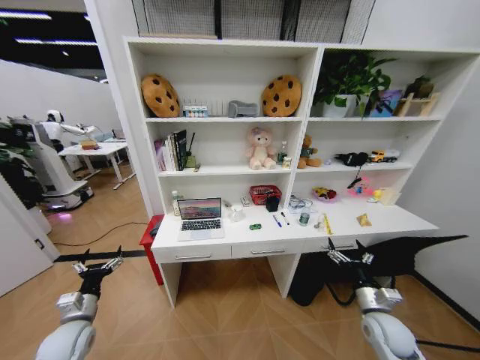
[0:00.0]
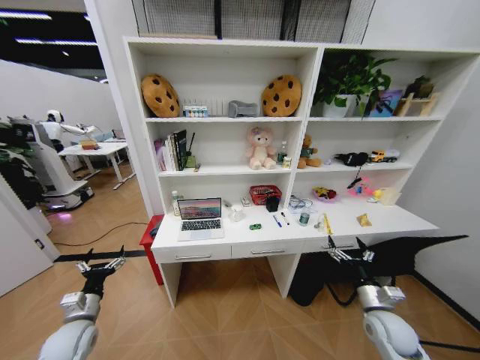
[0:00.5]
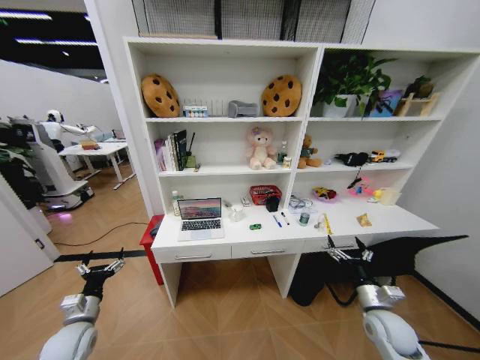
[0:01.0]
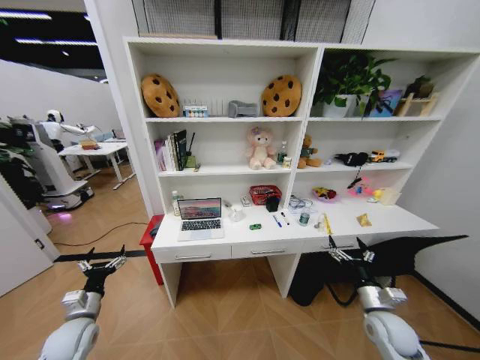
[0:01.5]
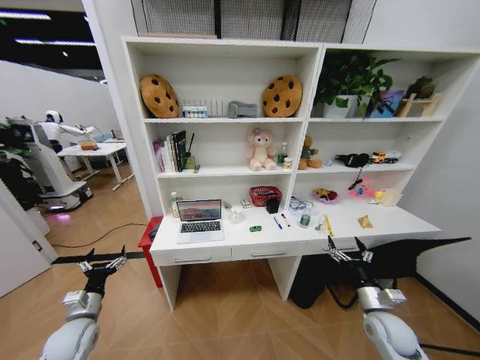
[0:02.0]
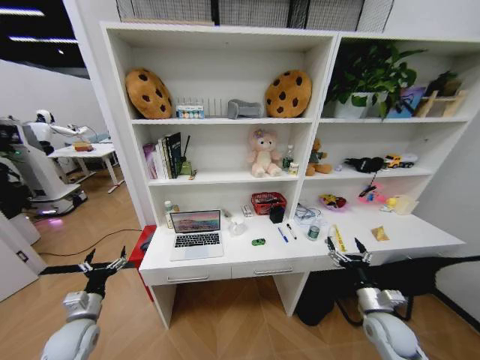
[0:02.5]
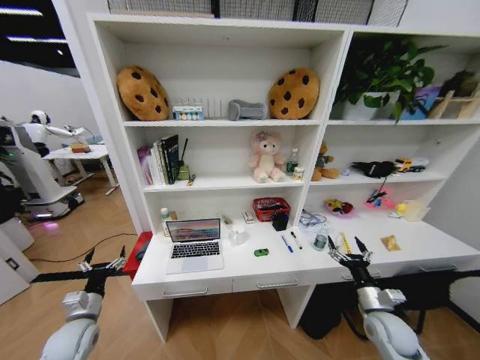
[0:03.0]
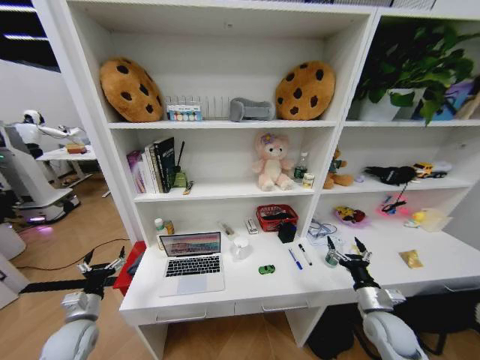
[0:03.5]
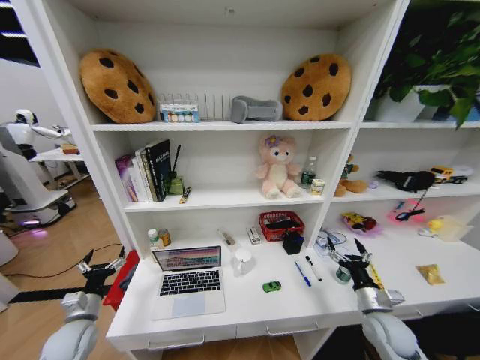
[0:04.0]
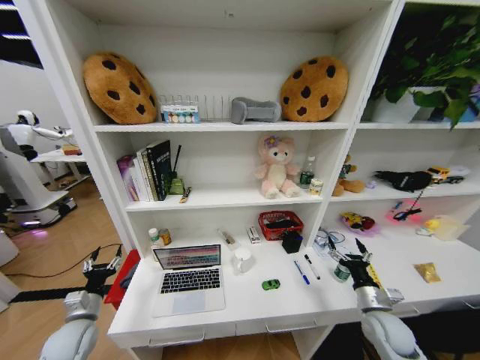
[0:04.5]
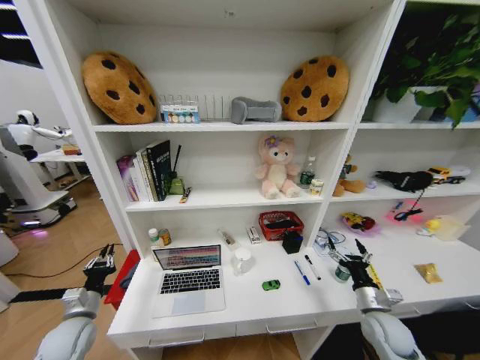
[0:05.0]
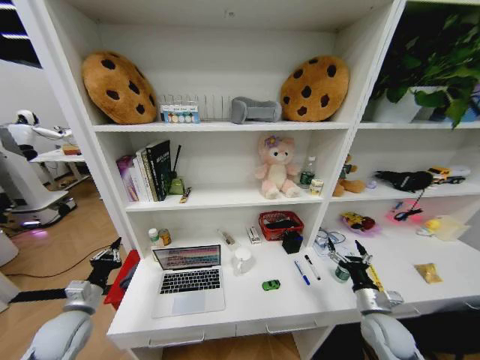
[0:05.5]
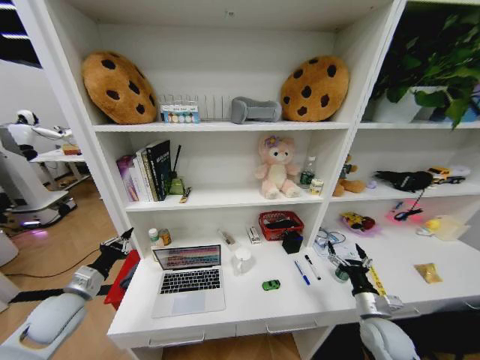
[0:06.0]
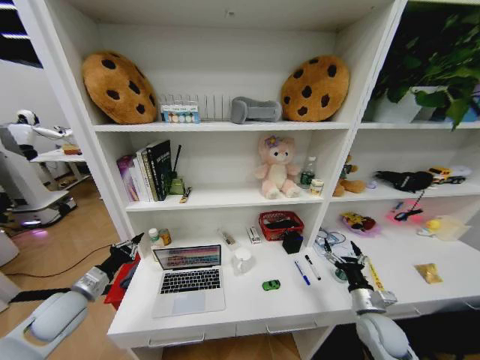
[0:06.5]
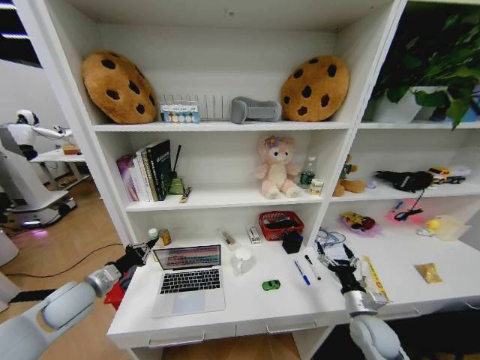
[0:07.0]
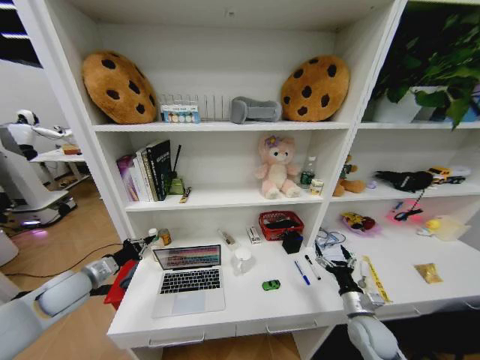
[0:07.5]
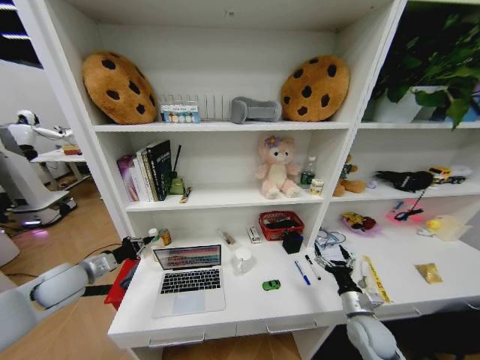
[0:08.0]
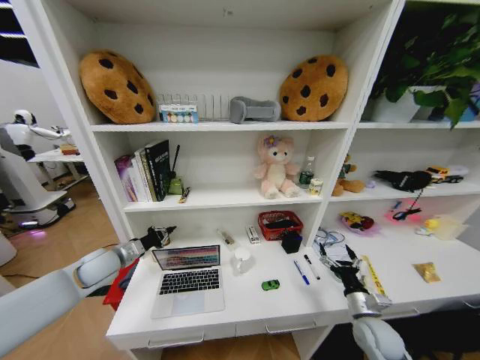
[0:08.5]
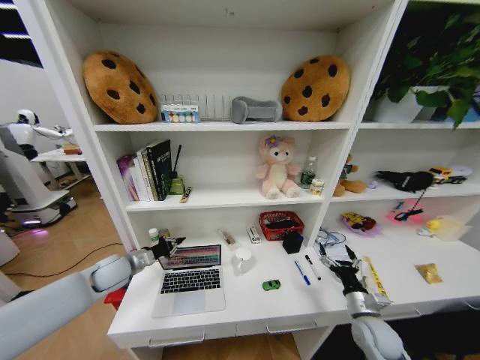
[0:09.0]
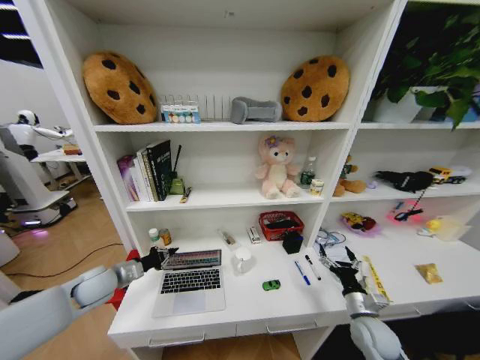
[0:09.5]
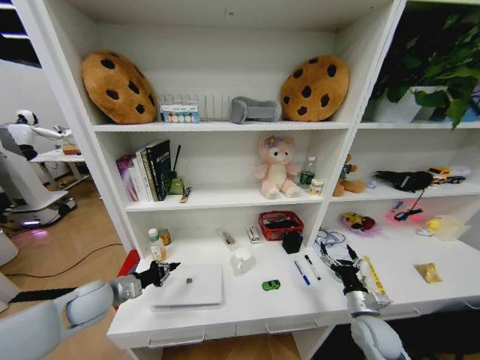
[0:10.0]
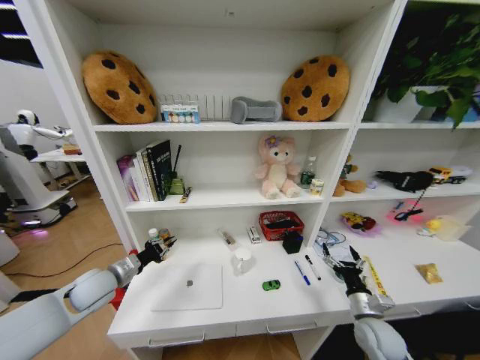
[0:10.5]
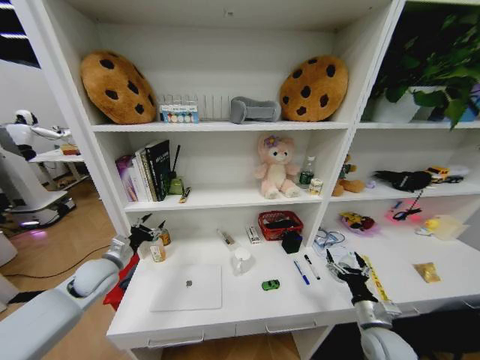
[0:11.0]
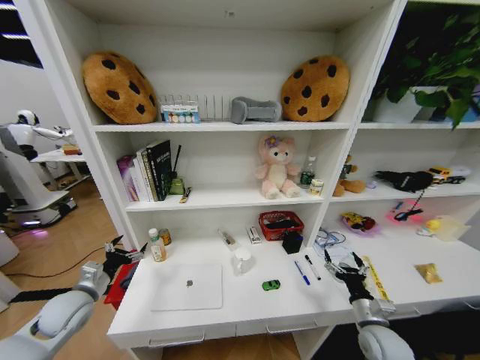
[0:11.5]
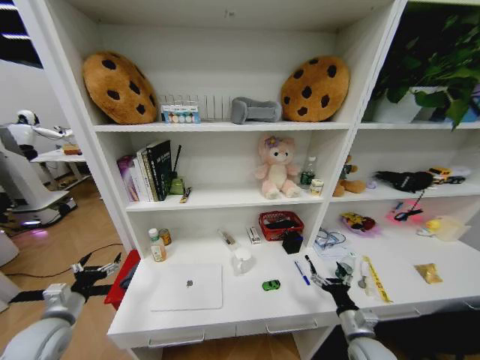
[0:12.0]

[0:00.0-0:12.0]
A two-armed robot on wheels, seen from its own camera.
Task of the whole recording: Organize the objects on the table.
0:04.0 to 0:06.0: The left gripper travels upward by roughly 10 cm, and closes.
0:06.0 to 0:08.0: The left gripper goes some 5 cm forward.
0:08.0 to 0:10.0: The left gripper shifts some 10 cm to the right and downward.
0:10.0 to 0:12.0: The left gripper is displaced backward and to the left by roughly 10 cm, and opens. Meanwhile the right gripper moves about 5 cm.

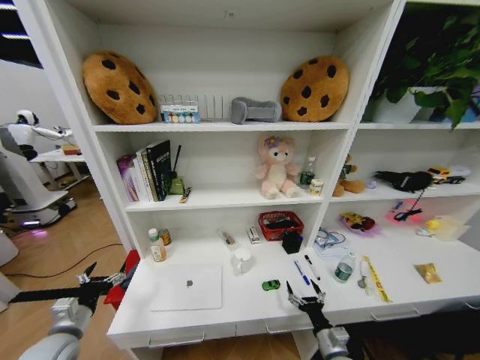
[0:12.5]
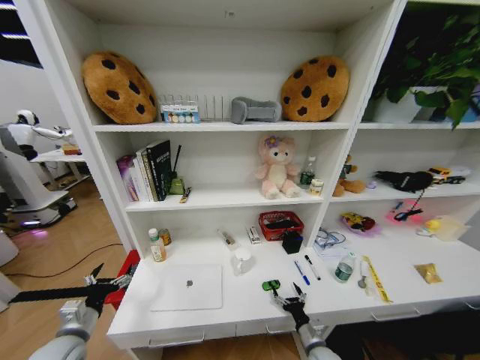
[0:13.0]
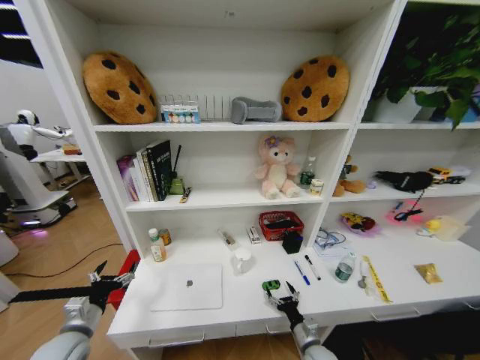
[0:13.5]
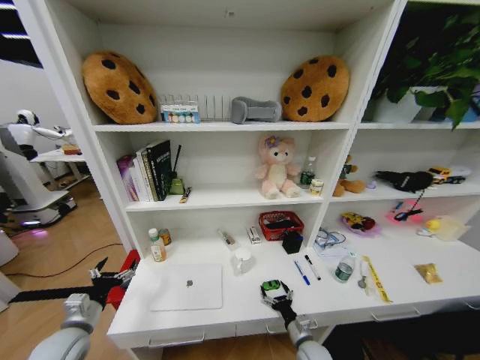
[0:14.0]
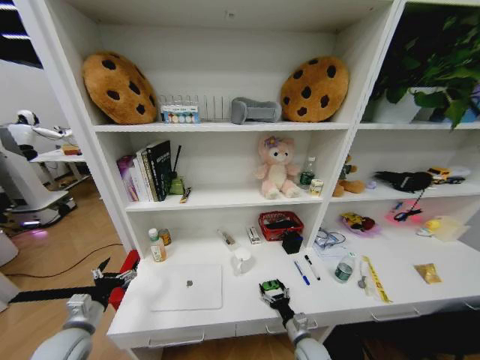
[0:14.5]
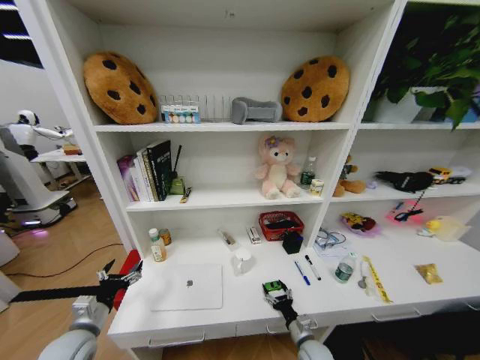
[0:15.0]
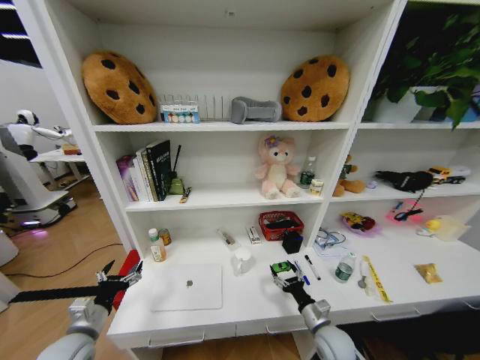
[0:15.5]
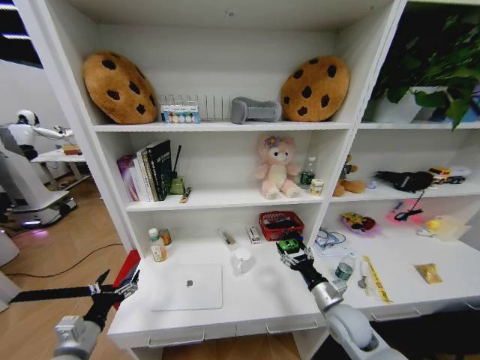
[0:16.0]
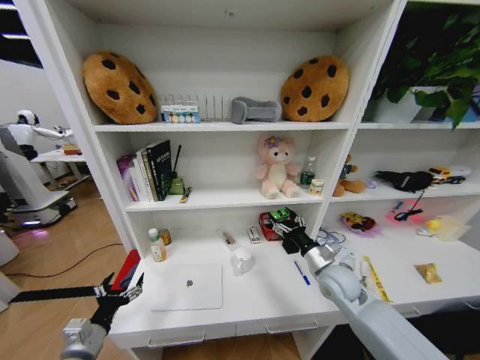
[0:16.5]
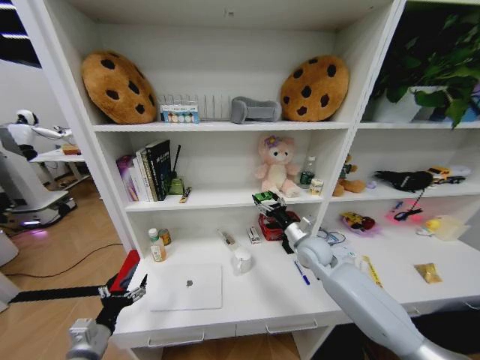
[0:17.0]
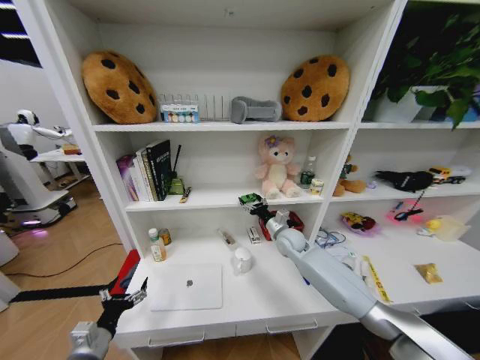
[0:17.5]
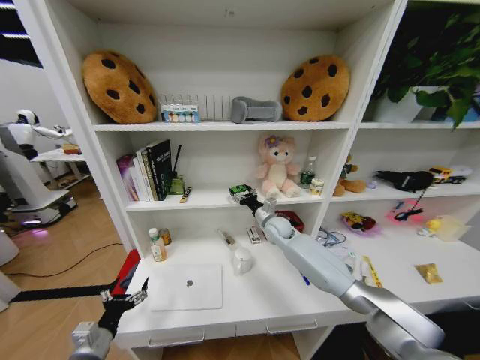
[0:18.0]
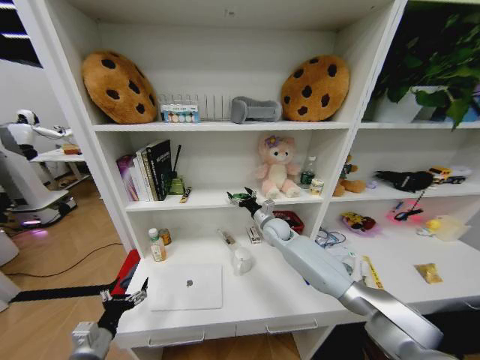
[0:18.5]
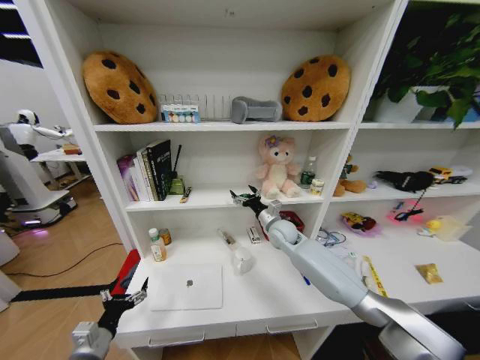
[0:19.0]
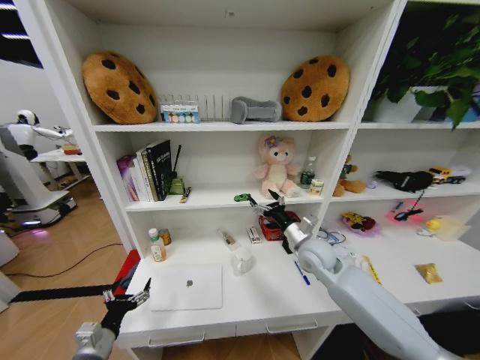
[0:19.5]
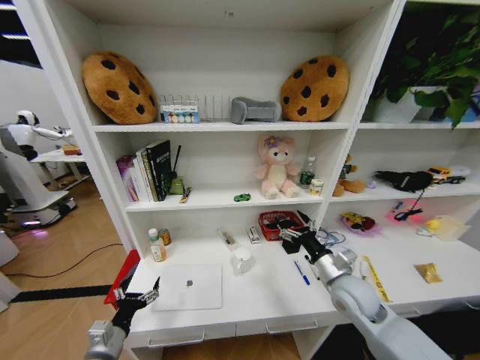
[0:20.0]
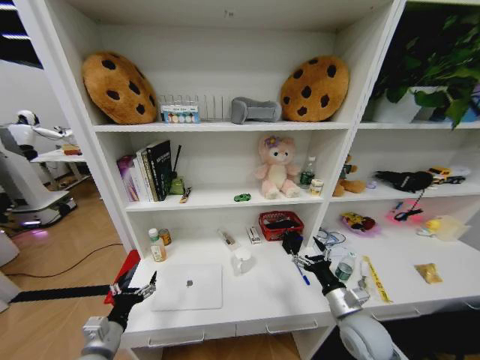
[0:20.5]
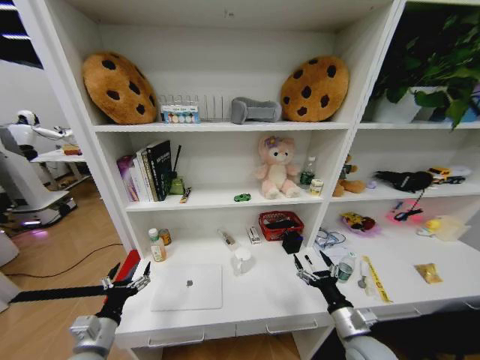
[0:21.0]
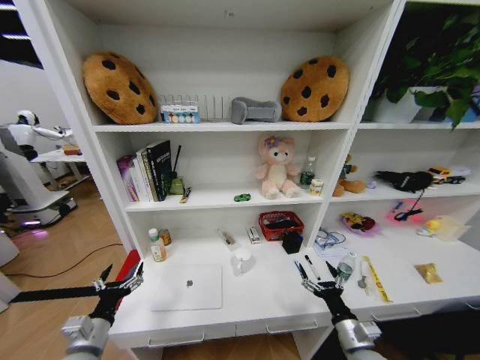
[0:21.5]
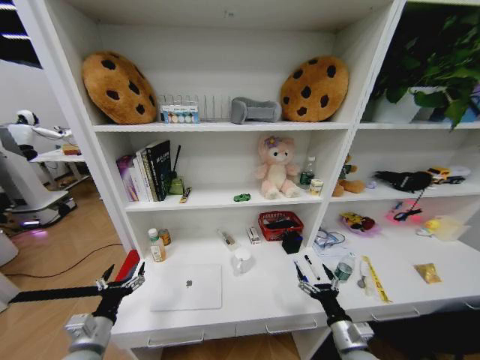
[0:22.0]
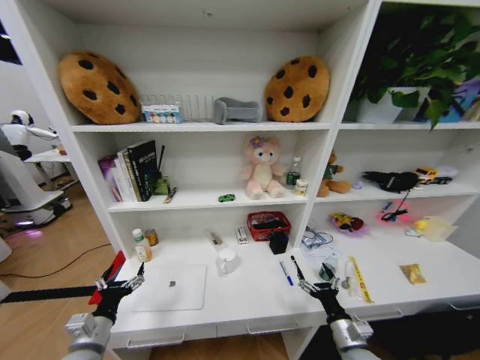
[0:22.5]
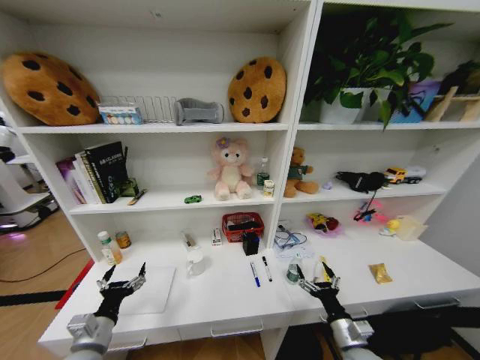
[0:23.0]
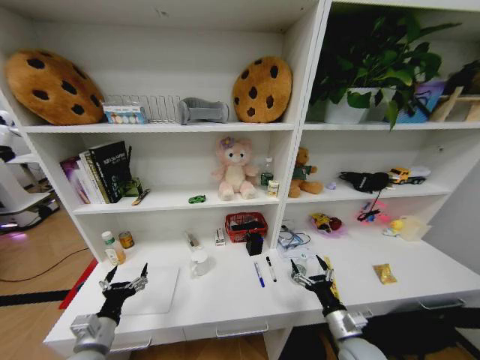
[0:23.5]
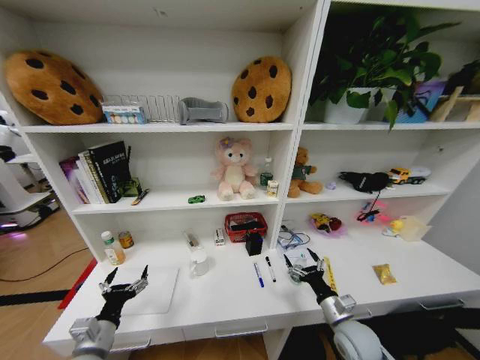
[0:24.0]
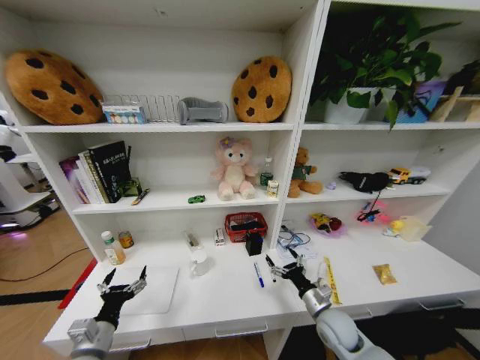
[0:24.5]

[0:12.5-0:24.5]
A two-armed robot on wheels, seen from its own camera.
Task of the whole recording: Organize the objects on the table.
0:12.5 to 0:14.5: The right gripper heads downward, forward and to the left, covering some 10 cm.
0:14.5 to 0:16.5: The right gripper goes some 30 cm upward and forward, while the left gripper travels backward by roughly 5 cm.
0:16.5 to 0:18.5: The right gripper is displaced forward and to the left by about 20 cm.
0:18.5 to 0:20.5: The right gripper goes approximately 30 cm backward and to the right.
0:20.5 to 0:22.5: The right gripper shifts approximately 10 cm downward and backward.
0:22.5 to 0:24.5: The right gripper travels forward by about 10 cm.

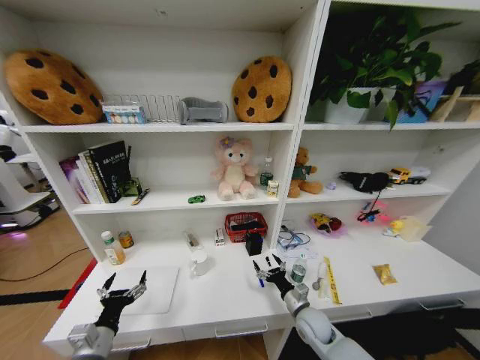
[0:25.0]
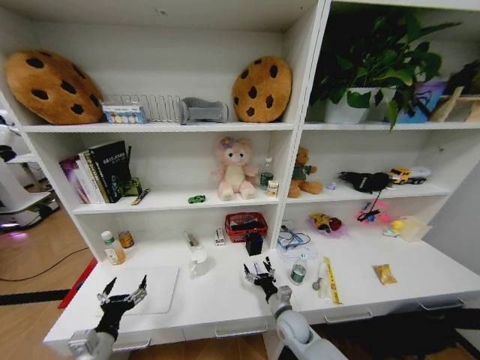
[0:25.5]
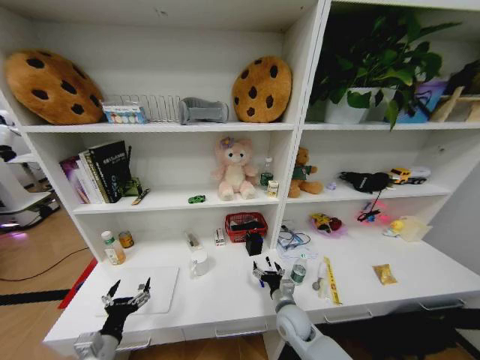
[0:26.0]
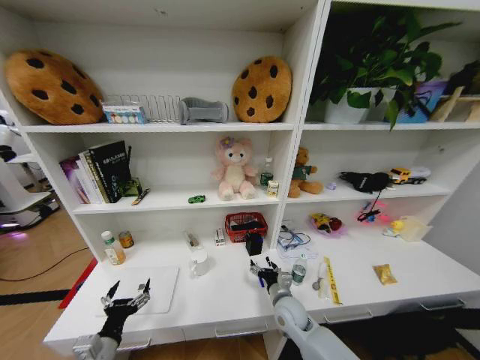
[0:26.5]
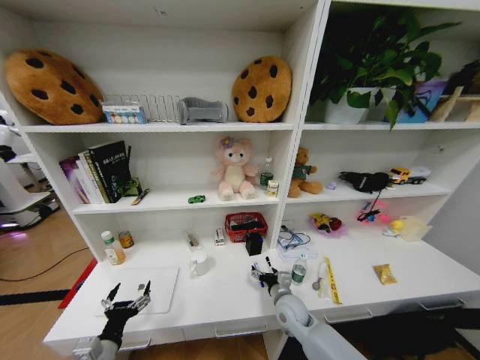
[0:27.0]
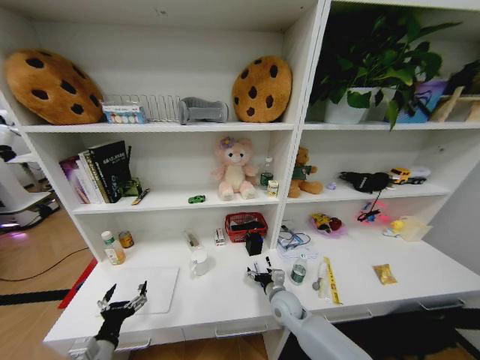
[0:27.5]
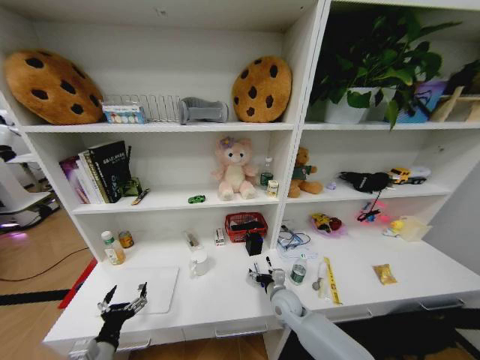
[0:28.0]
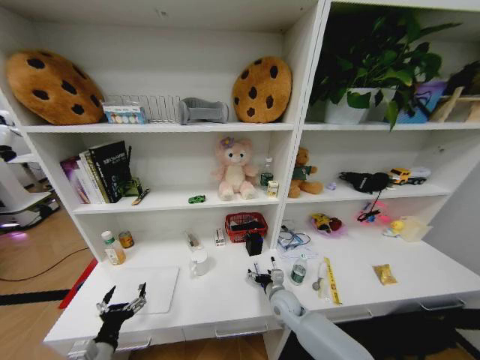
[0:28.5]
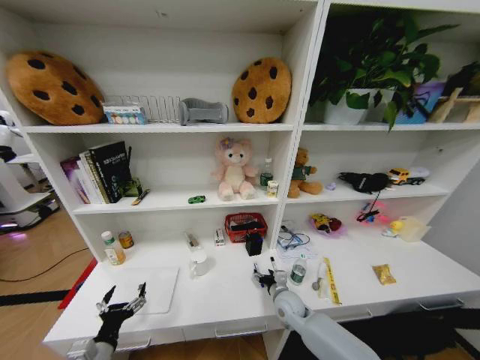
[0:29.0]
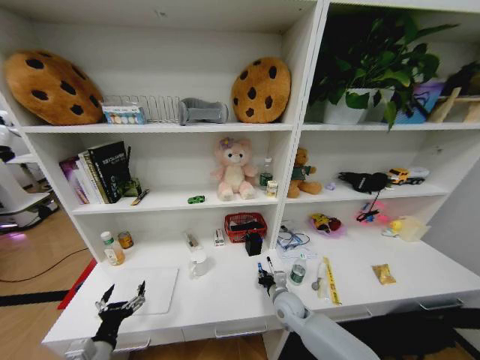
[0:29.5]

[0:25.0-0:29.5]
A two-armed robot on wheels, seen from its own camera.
Task of the whole recording: Organize the objects on the table.
0:25.0 to 0:27.0: The right gripper moves to the left, some 5 cm.
0:27.0 to 0:29.5: The right gripper closes up.
